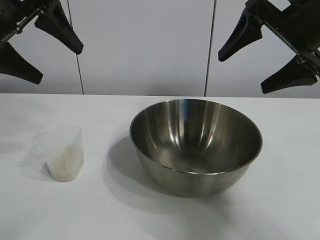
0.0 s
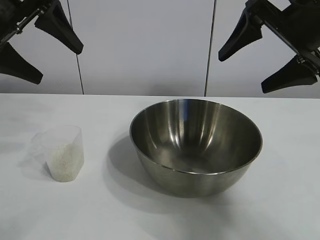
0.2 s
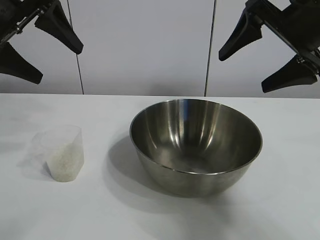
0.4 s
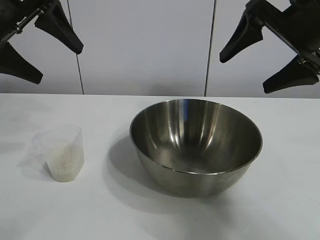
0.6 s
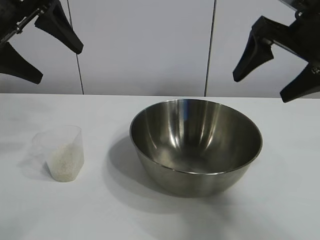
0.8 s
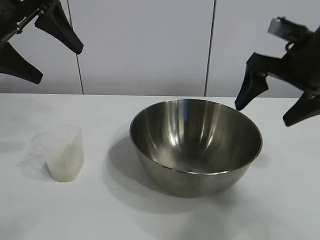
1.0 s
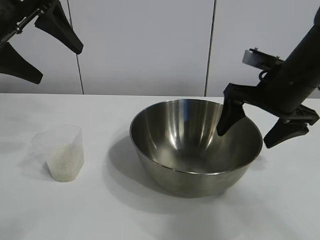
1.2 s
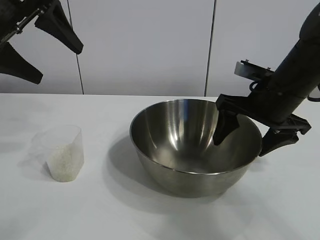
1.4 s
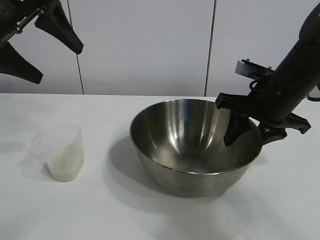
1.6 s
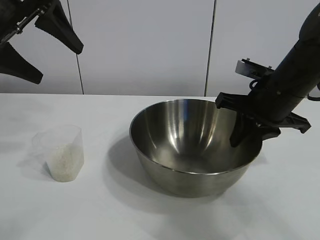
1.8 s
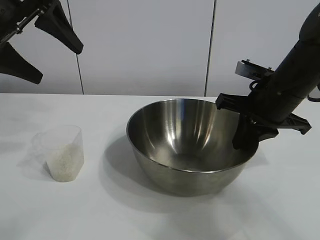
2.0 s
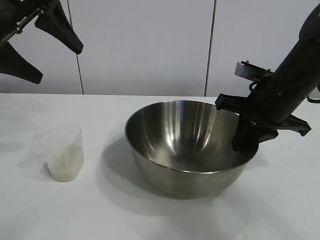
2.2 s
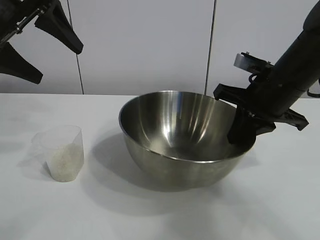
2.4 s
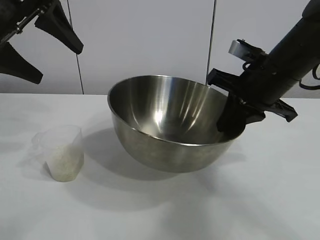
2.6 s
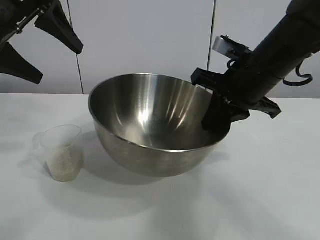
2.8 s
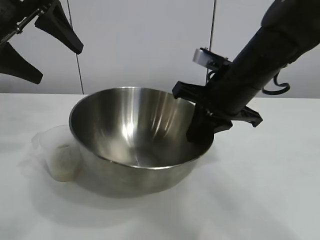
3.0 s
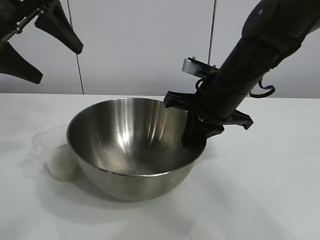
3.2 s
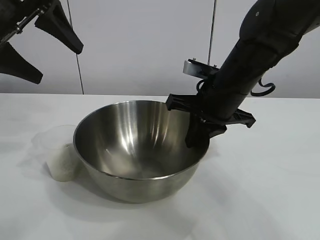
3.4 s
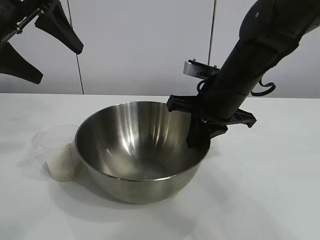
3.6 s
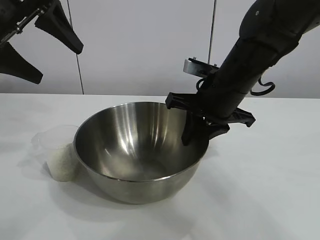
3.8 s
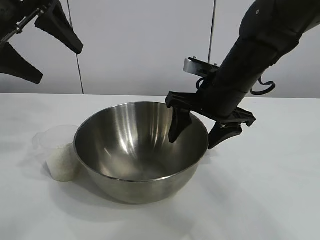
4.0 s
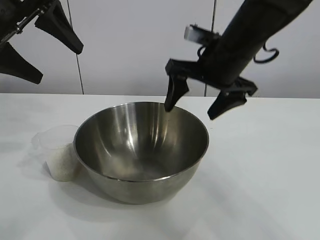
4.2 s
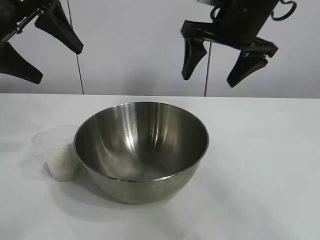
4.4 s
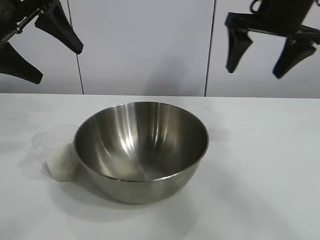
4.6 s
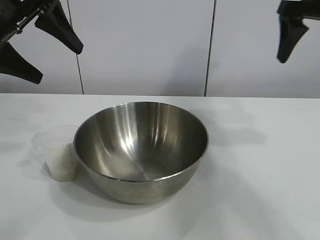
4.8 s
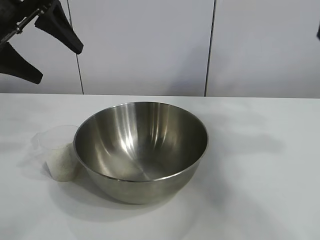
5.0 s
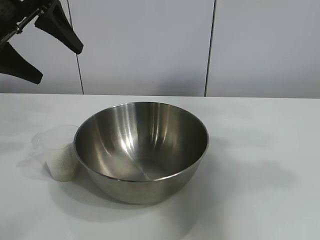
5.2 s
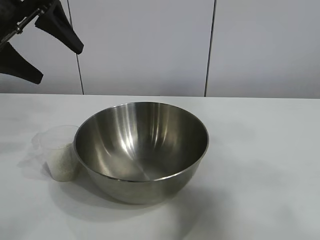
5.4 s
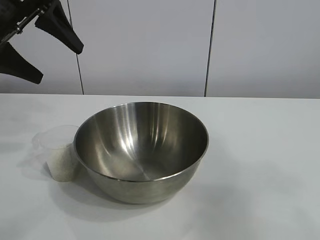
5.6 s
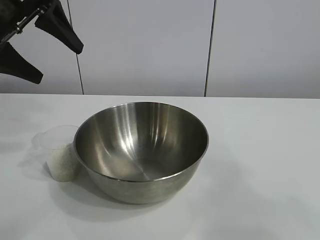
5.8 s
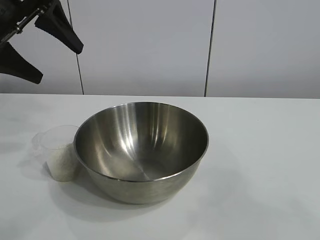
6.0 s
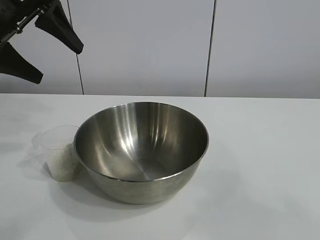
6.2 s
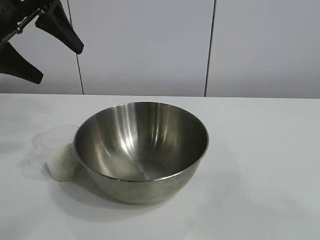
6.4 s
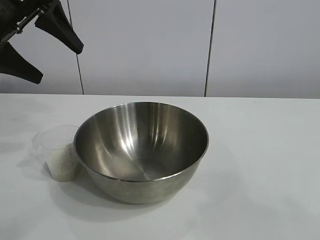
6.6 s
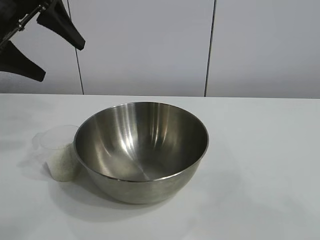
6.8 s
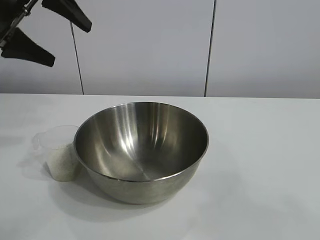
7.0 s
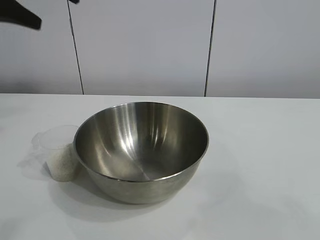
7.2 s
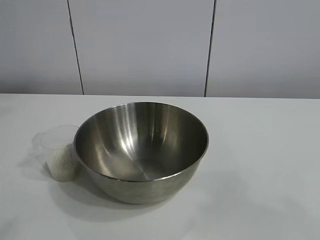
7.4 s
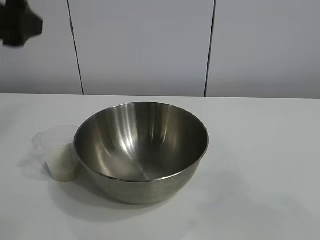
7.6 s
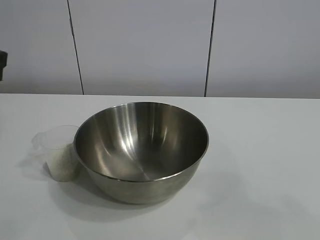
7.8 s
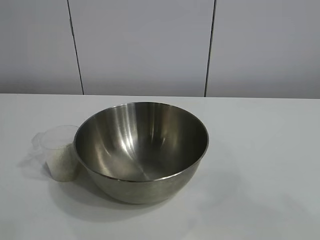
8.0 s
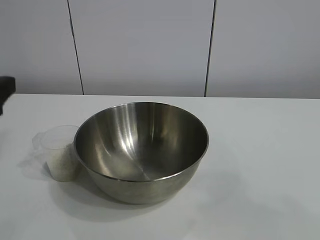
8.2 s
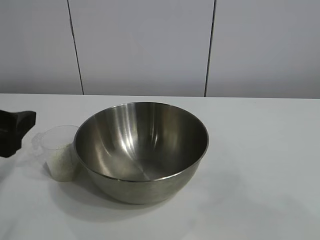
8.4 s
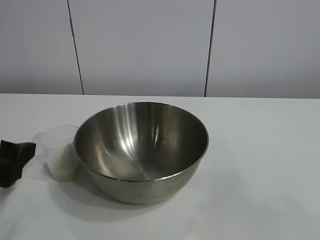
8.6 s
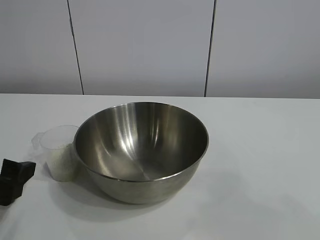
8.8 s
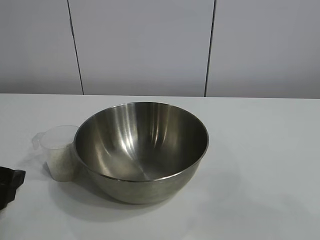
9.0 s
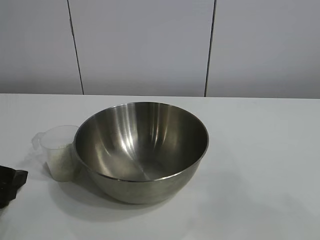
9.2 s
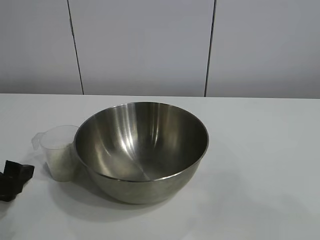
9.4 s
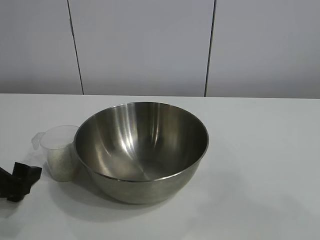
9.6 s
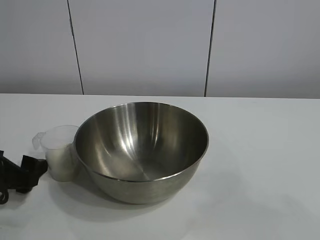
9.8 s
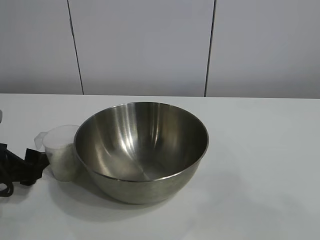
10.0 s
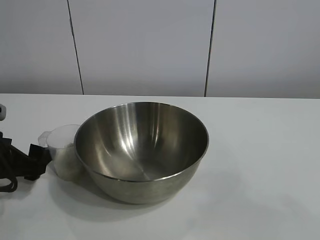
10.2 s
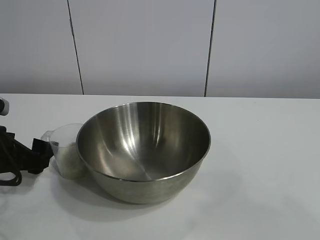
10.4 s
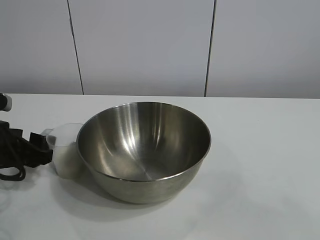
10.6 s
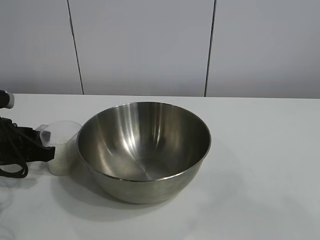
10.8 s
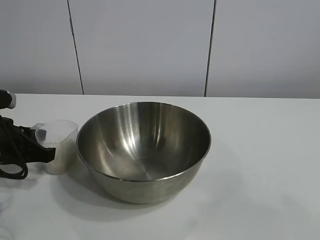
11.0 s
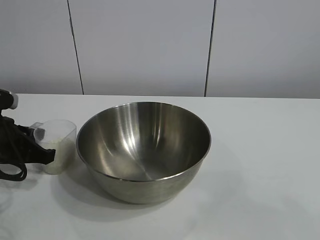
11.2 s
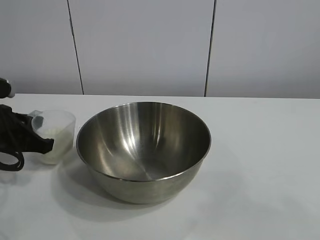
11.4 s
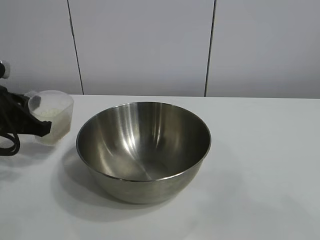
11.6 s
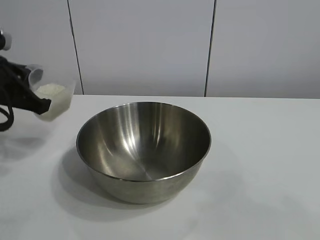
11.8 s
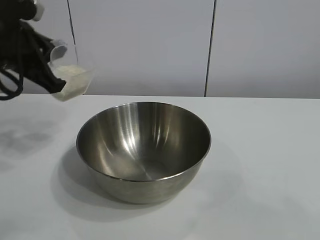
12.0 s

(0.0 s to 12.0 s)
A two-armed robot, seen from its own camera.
Task of the whole recording: the right gripper grasp the rice container and place it in the center of the table, the left gripper grasp the rice scoop and pour the rice into the rice container.
Step, 0.6 s - 4.0 s: Move the bowl in the center of view with right gripper.
Step, 4.2 s - 11.0 s: Grasp the cup with rice in it with left gripper.

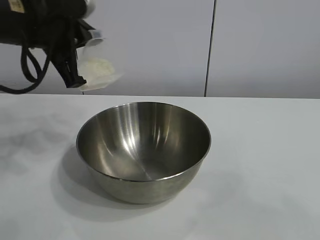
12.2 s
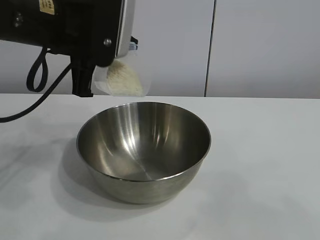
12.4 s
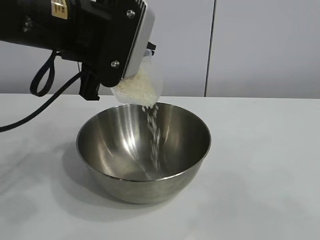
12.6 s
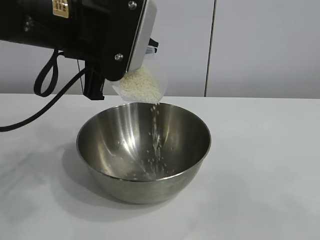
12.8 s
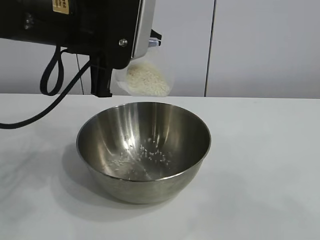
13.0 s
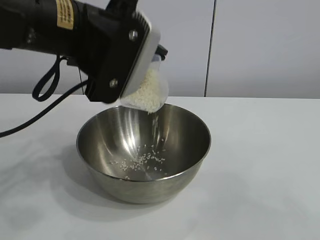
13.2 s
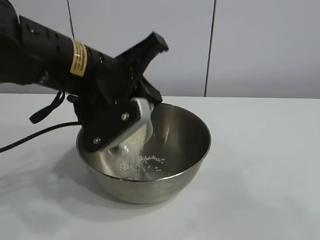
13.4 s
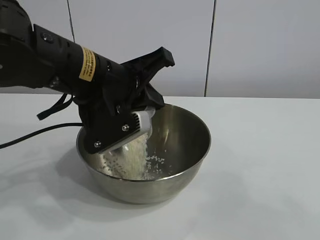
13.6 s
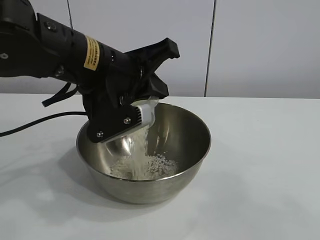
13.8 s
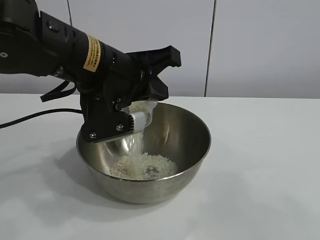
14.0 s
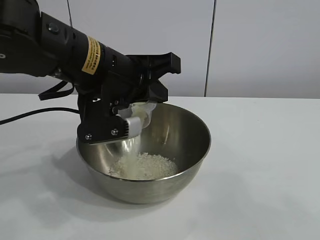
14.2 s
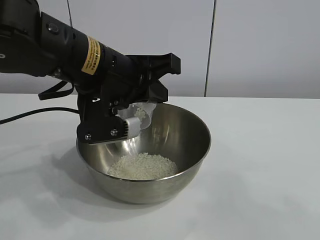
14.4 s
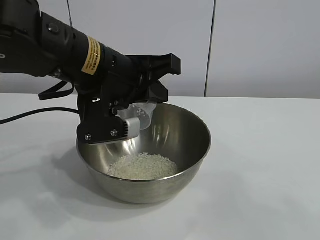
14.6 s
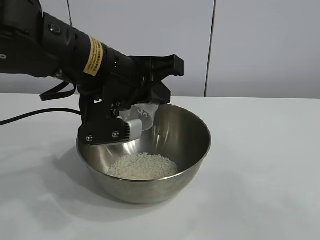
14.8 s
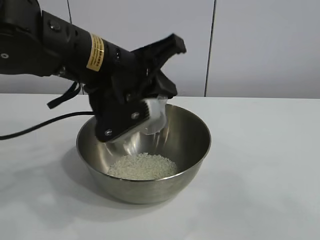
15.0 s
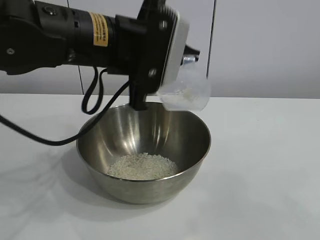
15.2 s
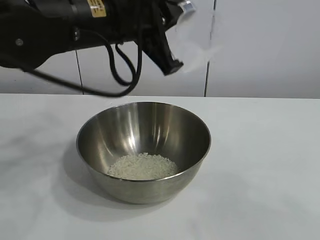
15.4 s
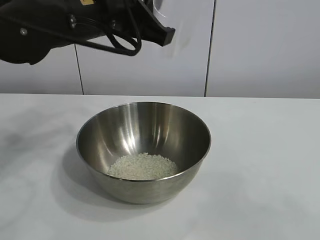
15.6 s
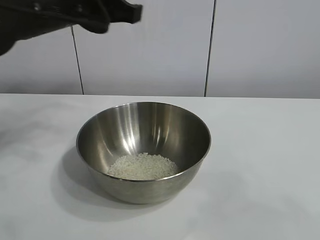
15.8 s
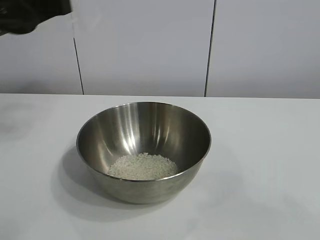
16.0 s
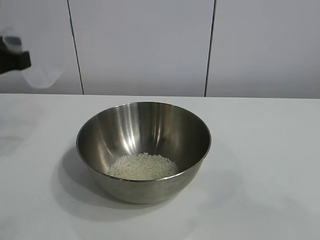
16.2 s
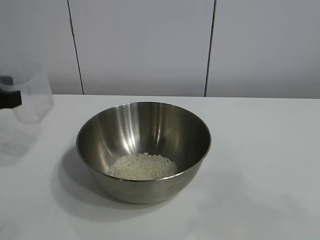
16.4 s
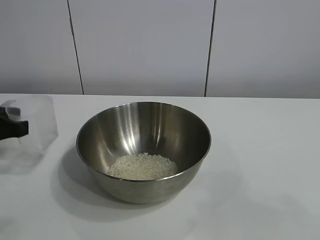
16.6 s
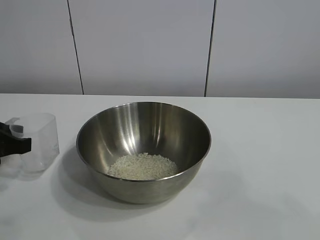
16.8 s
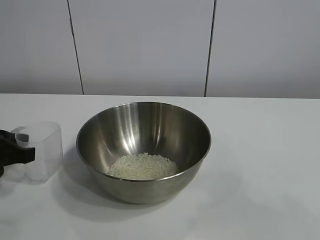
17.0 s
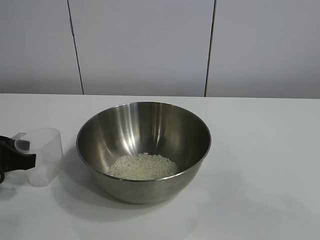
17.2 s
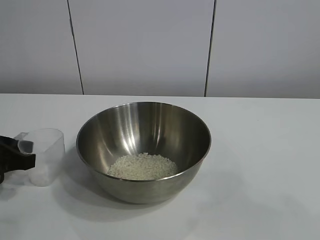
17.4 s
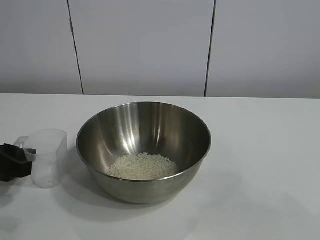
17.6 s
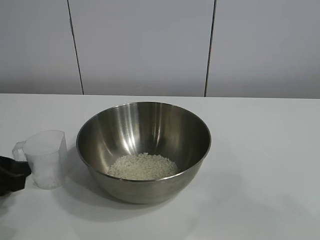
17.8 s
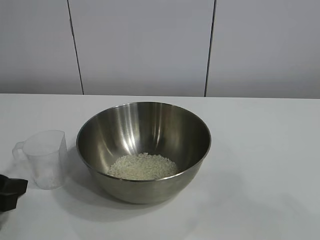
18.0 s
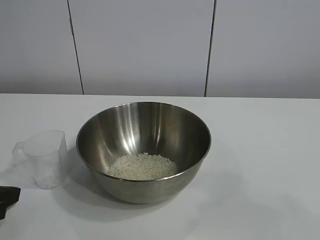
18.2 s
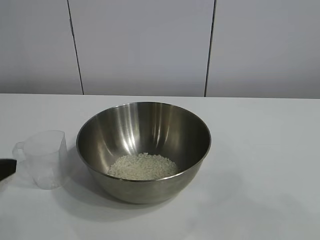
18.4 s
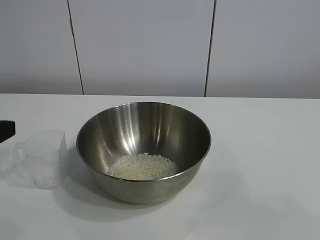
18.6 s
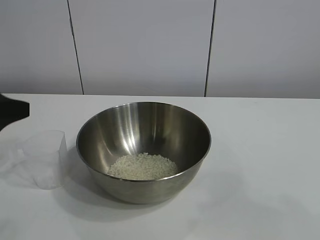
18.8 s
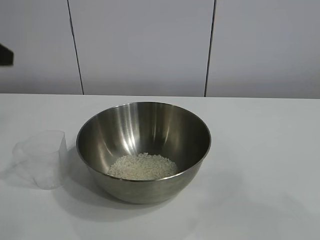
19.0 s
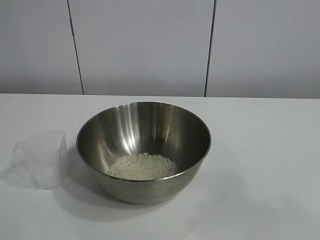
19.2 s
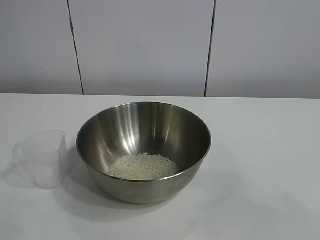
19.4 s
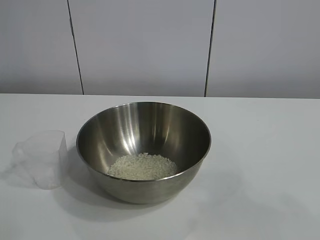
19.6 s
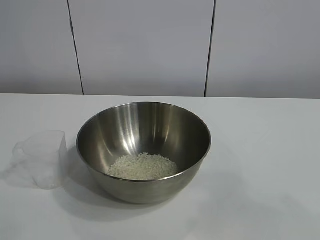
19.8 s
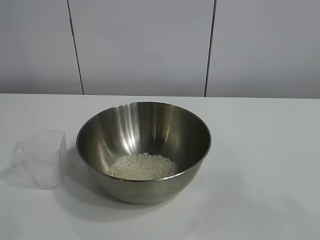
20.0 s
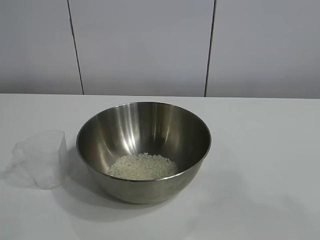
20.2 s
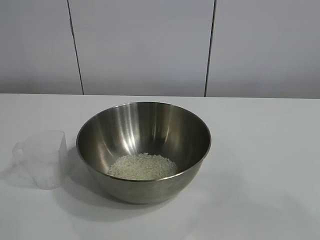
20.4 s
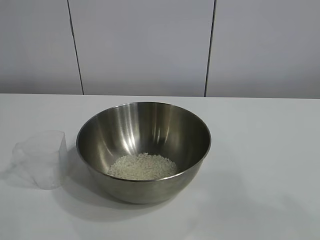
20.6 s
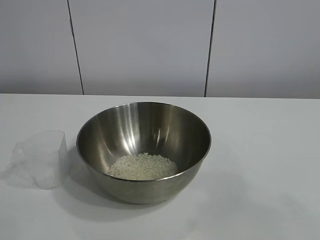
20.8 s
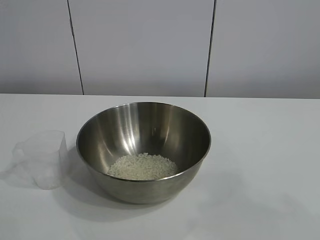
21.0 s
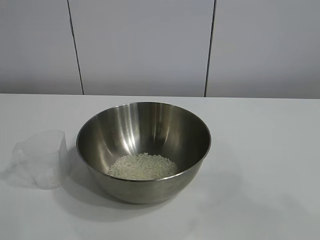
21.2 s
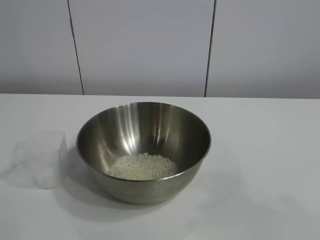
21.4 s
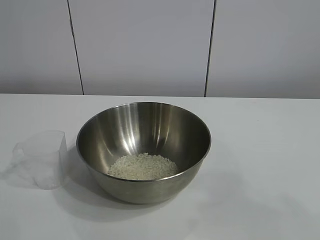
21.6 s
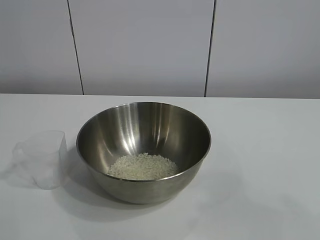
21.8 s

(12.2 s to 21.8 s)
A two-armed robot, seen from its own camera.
Task of the whole recording: the right gripper grasp the rice container and place it in the center of the table, the left gripper grasp the rice scoop and pour the rice into the rice container.
Step, 12.2 s - 14.8 s: Pour the rice from the cup into the bowl with the left gripper.
Step, 15.2 s - 17.4 s: Place the cup on the table with the left gripper.

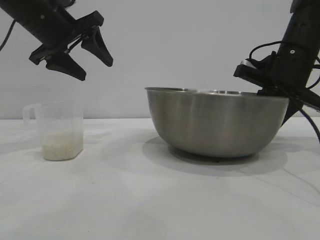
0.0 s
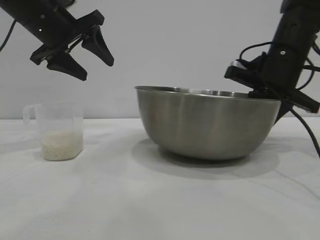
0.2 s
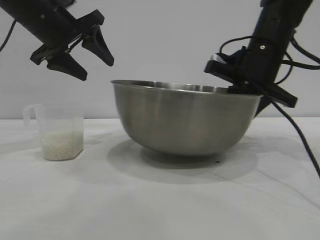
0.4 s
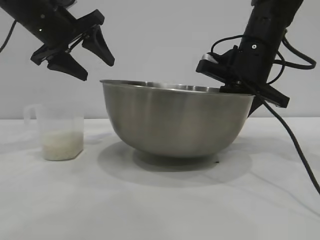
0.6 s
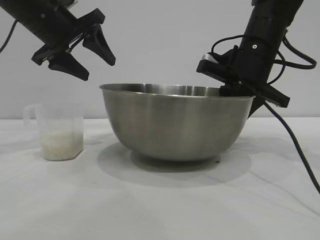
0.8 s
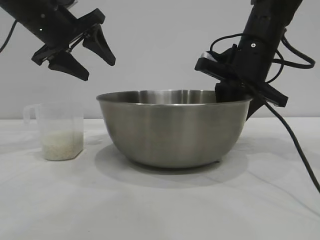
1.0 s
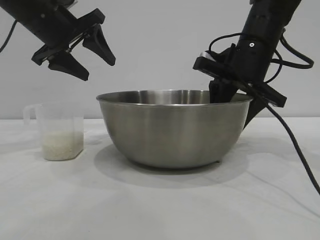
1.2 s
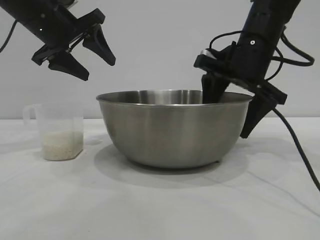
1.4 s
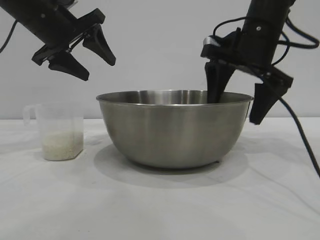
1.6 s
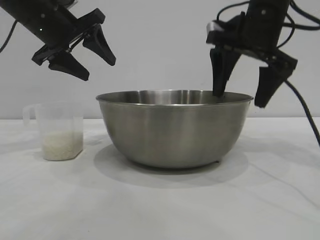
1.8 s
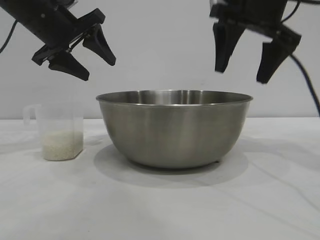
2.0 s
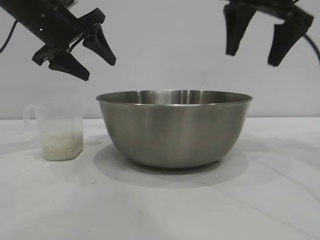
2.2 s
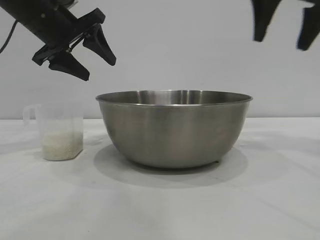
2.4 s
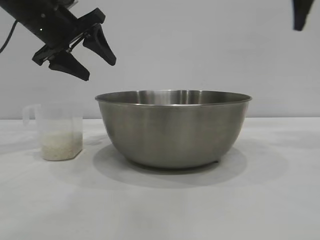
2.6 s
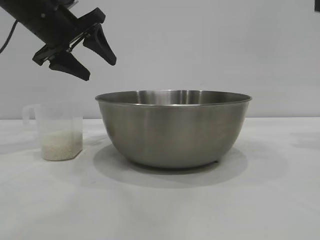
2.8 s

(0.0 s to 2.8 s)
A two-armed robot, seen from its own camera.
Task of the whole recording: the right gripper grasp the rice container and place it in the center of the table, the left gripper grasp the rice scoop and pour the rice into the rice container.
Step, 0.4 s - 1.8 s: Place the bowl in the center of view with the right gripper.
